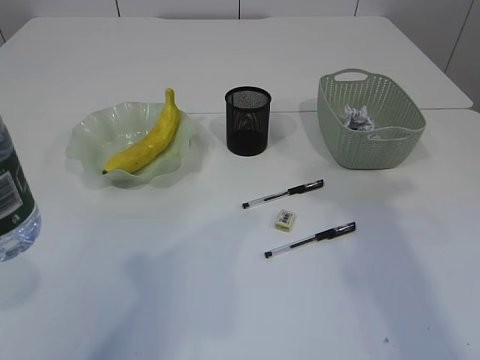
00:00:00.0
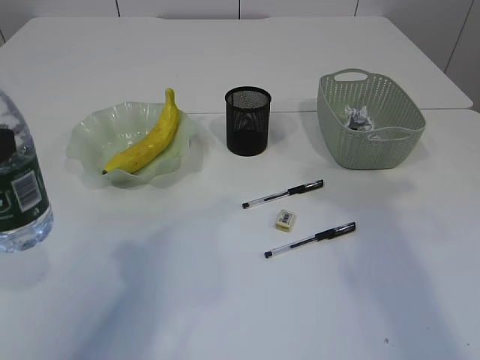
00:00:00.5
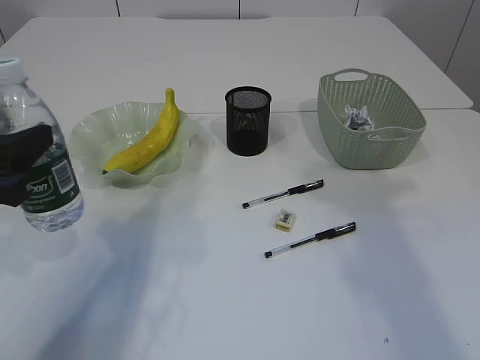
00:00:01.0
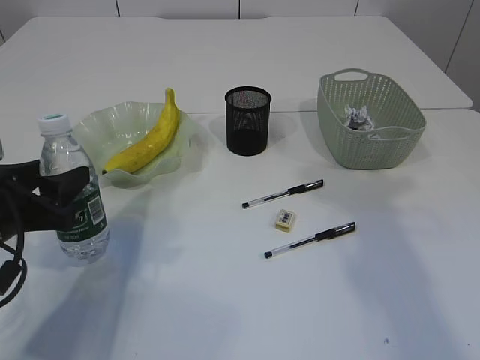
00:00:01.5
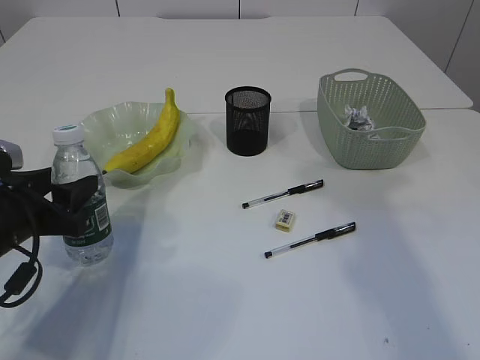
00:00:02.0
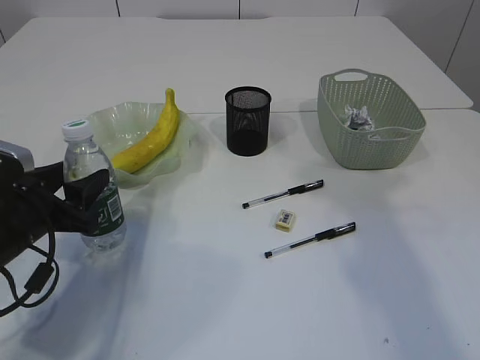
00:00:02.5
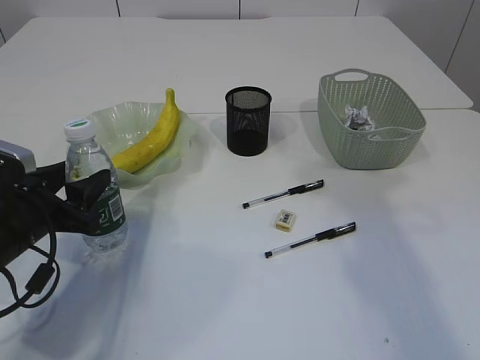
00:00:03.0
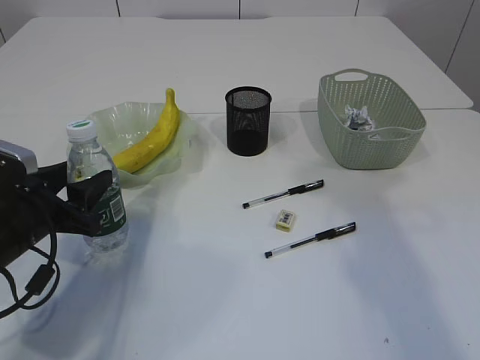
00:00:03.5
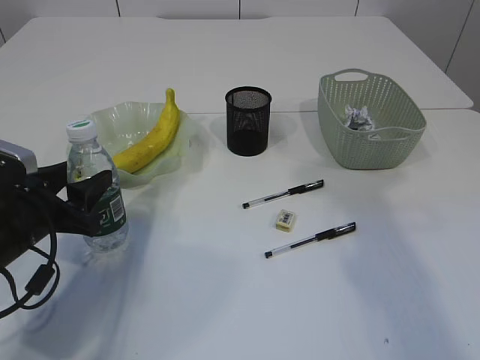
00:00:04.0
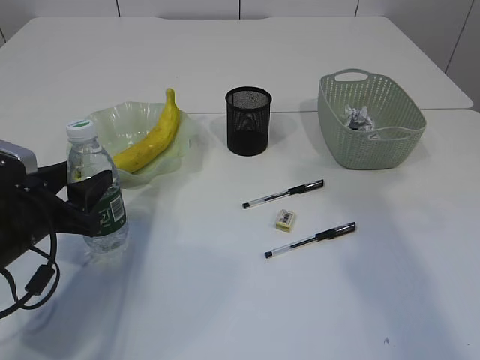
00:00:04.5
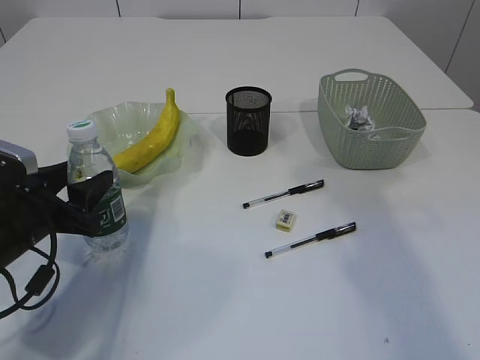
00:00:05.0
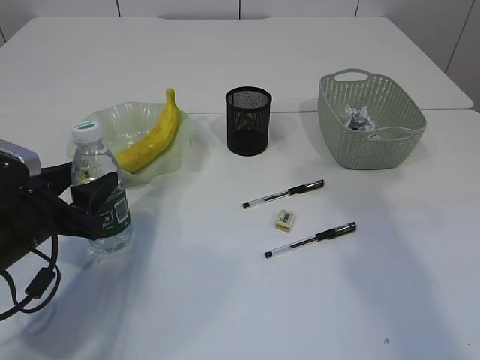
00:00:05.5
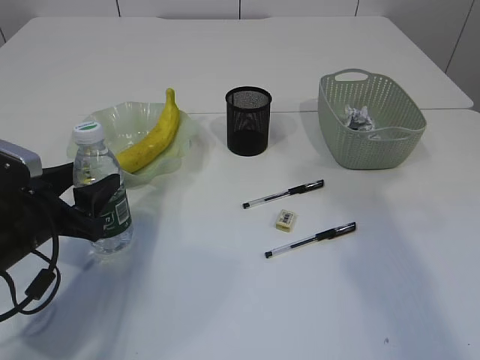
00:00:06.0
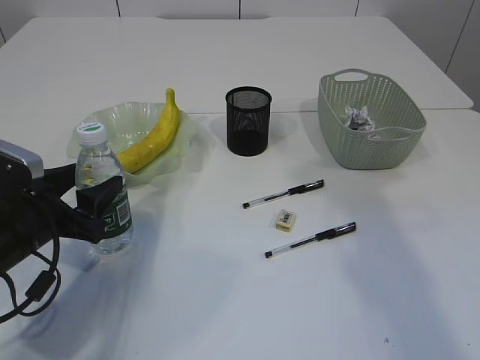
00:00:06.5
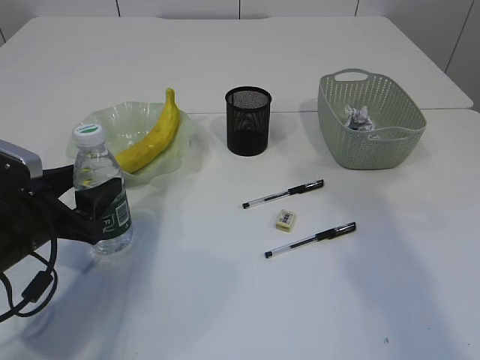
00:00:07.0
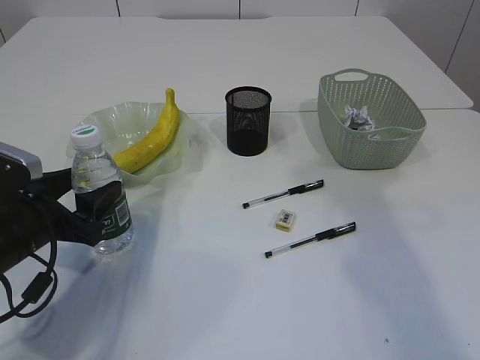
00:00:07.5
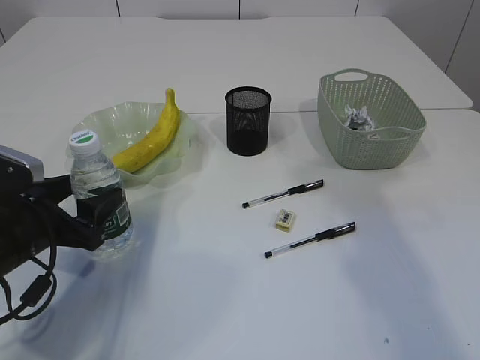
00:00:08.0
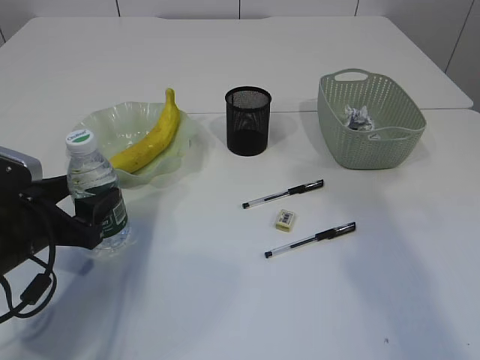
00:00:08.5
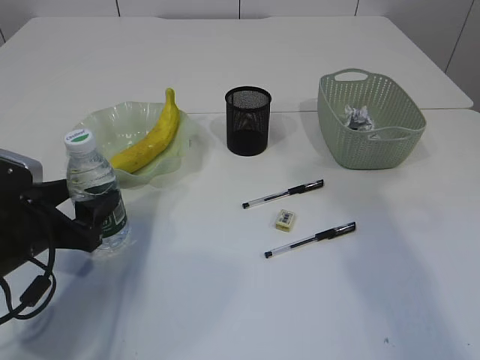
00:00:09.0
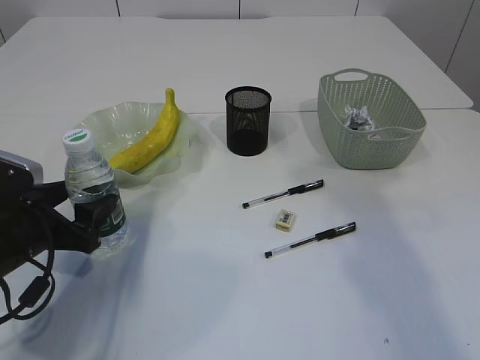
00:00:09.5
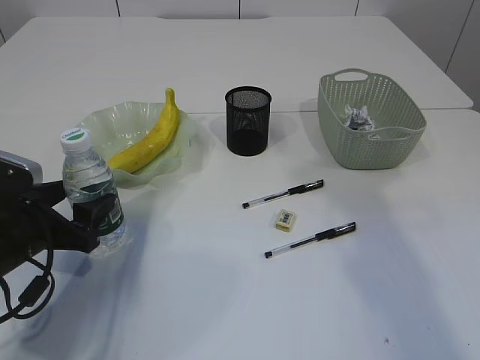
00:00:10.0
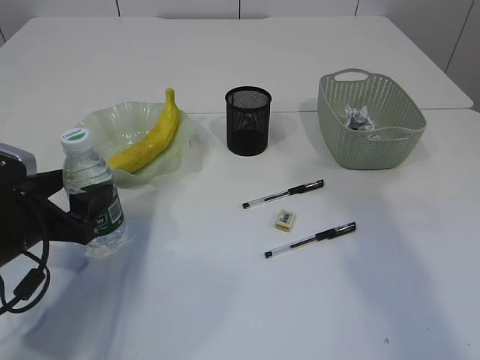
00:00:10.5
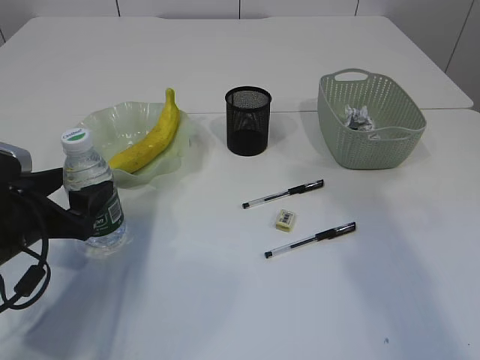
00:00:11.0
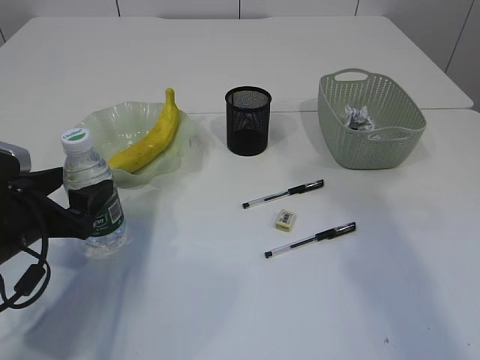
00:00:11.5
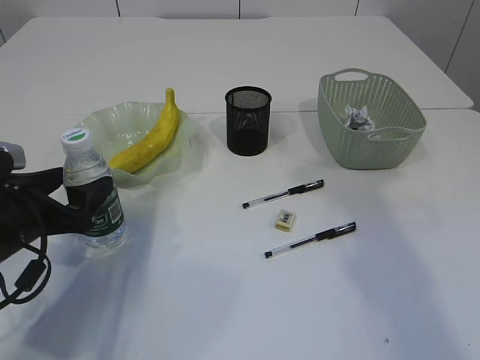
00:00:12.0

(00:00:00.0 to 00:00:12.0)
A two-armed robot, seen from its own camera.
00:00:00.0 - 00:00:02.0: The left gripper heads downward and forward, covering some 20 cm.
00:00:02.0 - 00:00:04.0: The grippers move only a little.
00:00:04.0 - 00:00:08.0: Both grippers stay put.
00:00:08.0 - 00:00:10.0: Both grippers stay put.
00:00:10.0 - 00:00:12.0: There are only small adjustments of the grippers.

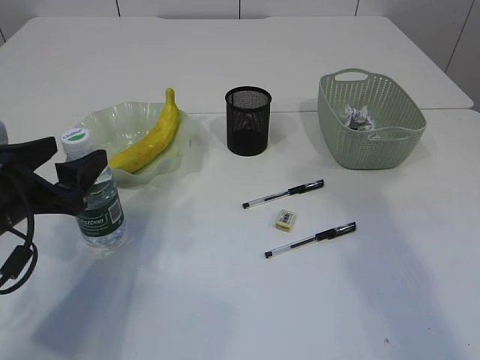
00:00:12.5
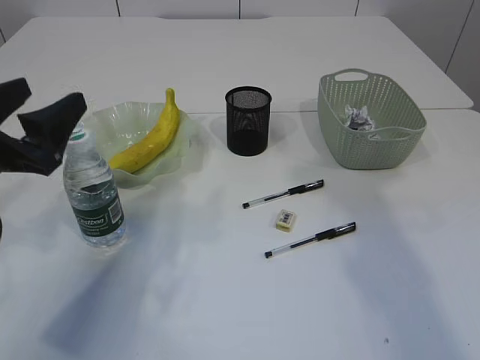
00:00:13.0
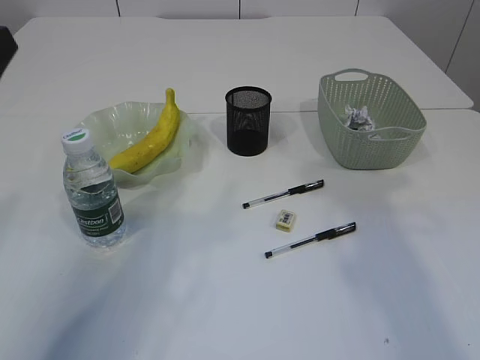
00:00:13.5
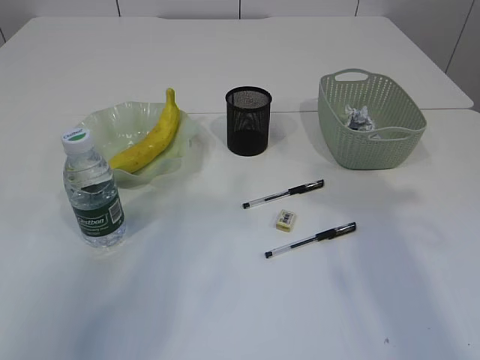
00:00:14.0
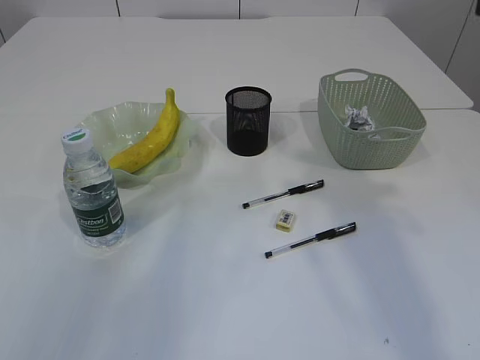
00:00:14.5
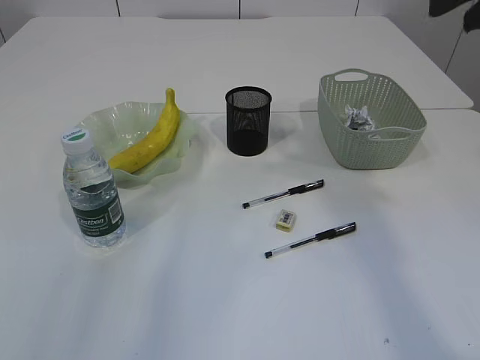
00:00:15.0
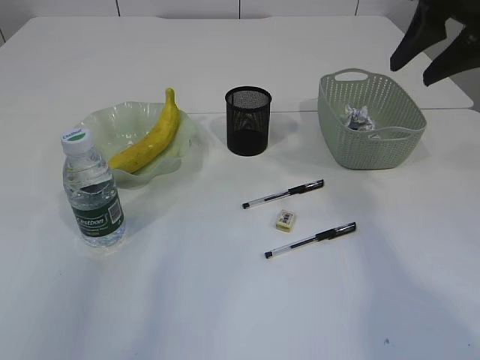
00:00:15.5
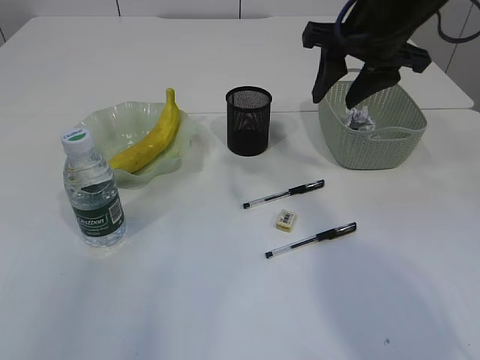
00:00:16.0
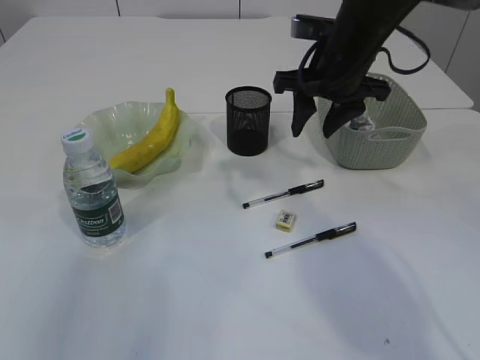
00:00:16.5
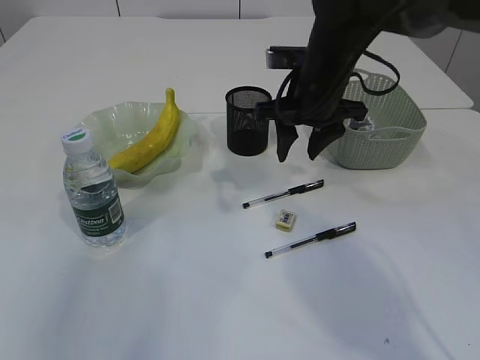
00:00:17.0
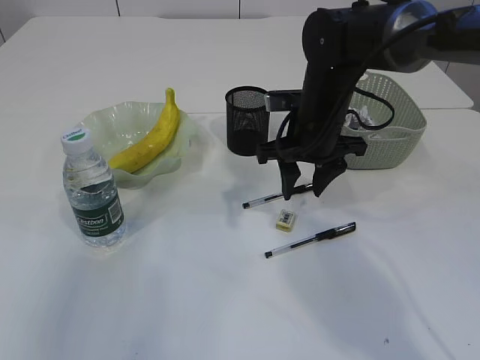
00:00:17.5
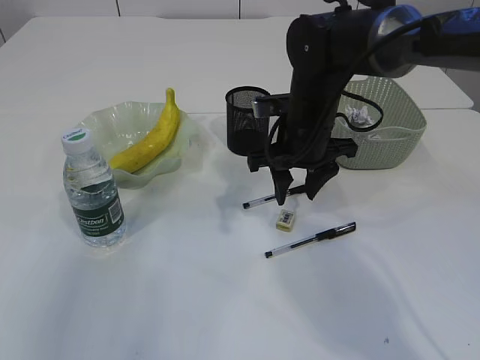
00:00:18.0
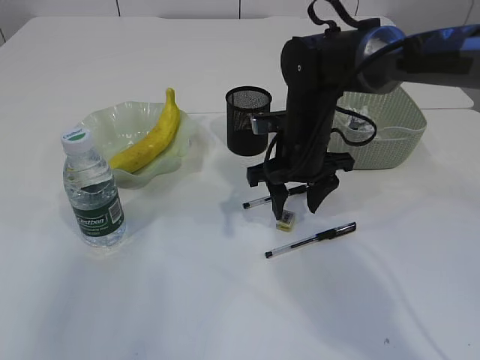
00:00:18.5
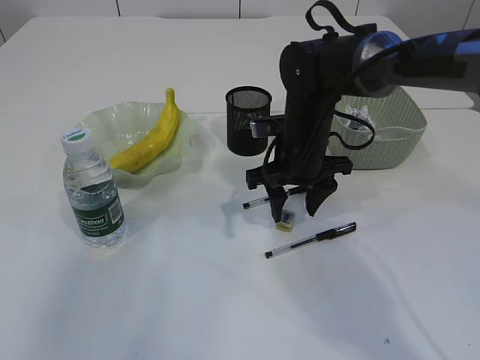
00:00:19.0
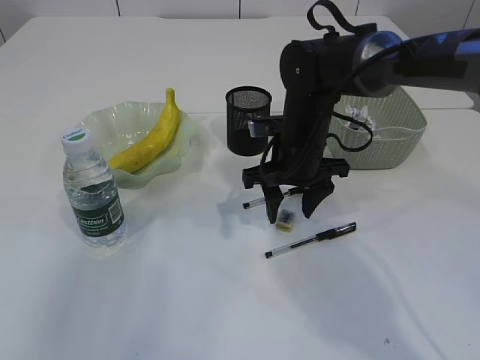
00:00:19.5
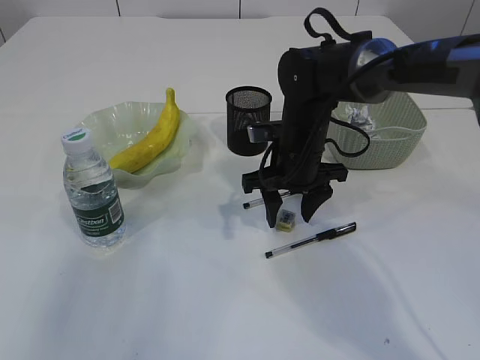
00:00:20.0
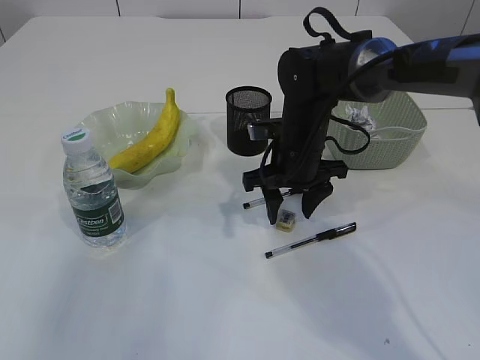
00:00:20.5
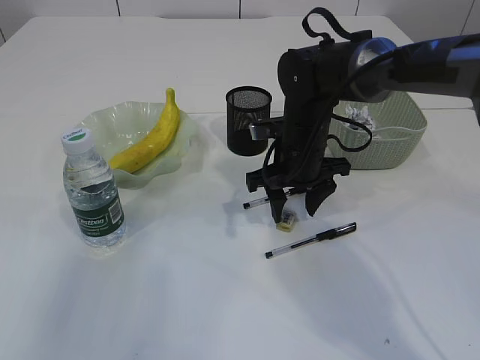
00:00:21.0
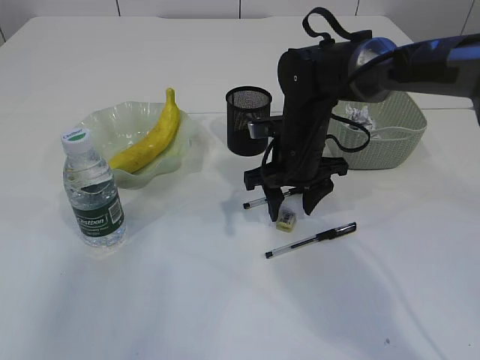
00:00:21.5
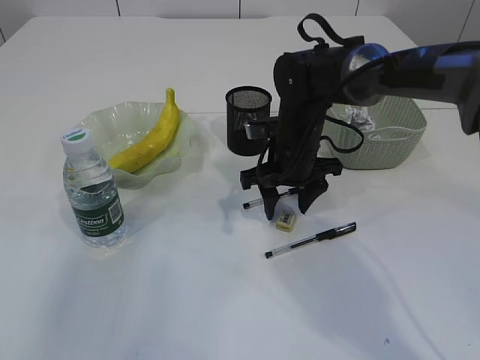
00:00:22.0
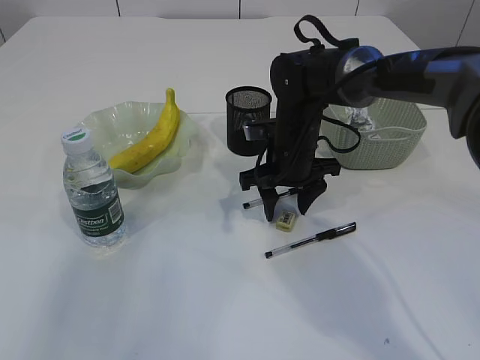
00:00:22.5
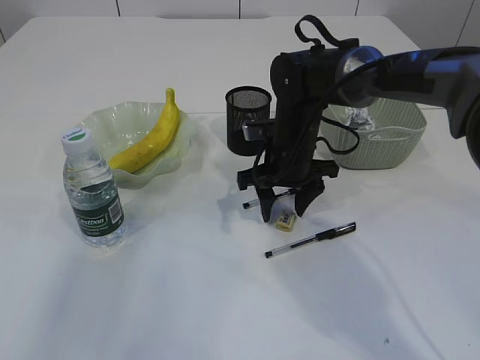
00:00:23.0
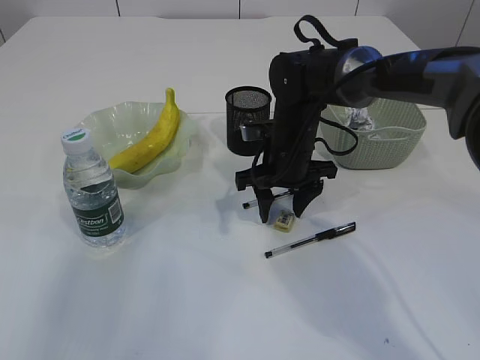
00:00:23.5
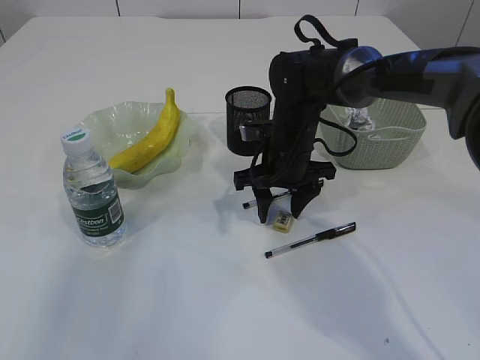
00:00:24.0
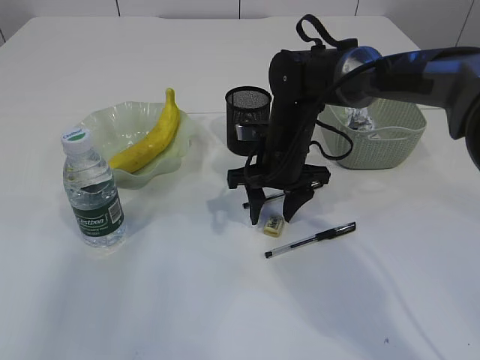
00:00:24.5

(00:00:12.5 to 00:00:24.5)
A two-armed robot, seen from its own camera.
00:00:12.5 - 00:00:14.5: The left gripper goes roughly 25 cm upward.
00:00:14.5 - 00:00:16.5: The right gripper is displaced forward, downward and to the left by approximately 25 cm.
00:00:16.5 - 00:00:18.5: The right gripper moves downward, about 10 cm.
00:00:18.5 - 00:00:24.5: The grippers move only a little.

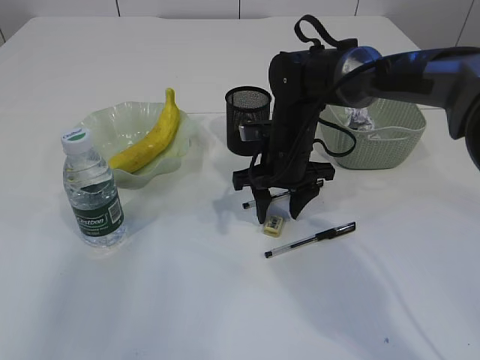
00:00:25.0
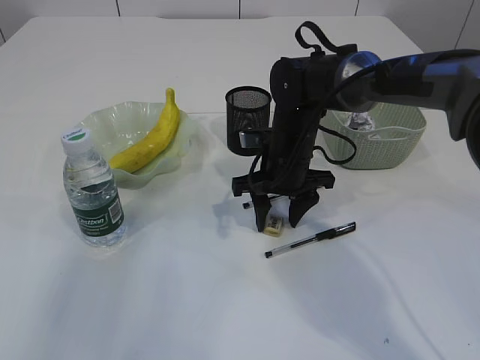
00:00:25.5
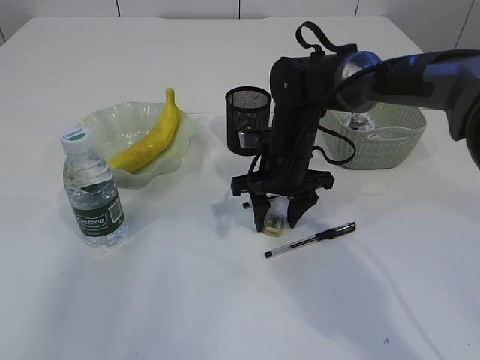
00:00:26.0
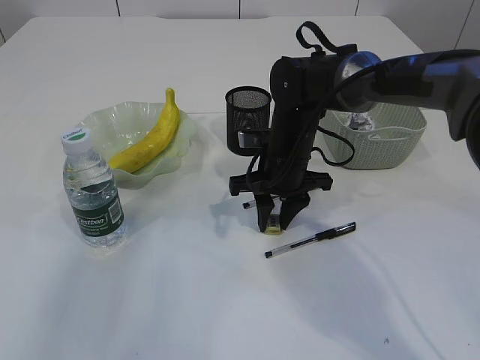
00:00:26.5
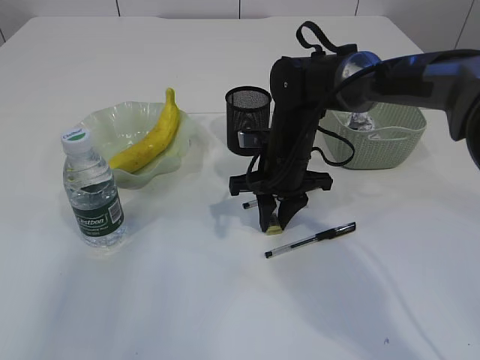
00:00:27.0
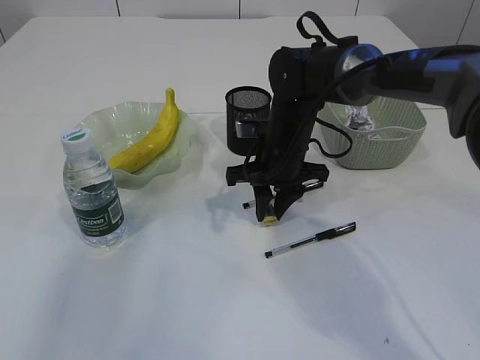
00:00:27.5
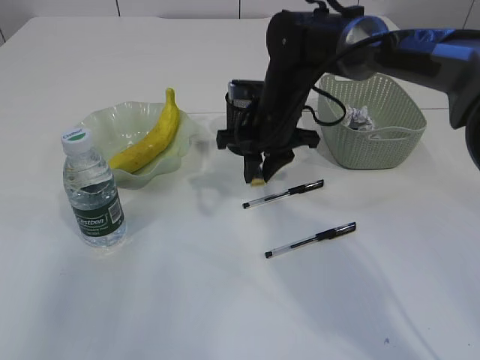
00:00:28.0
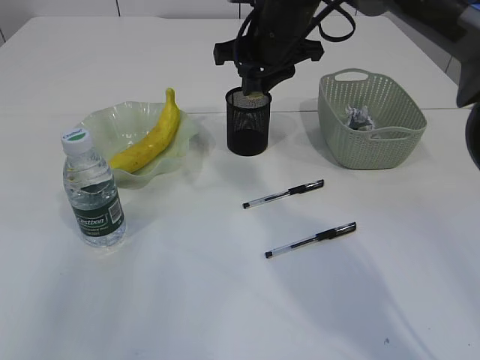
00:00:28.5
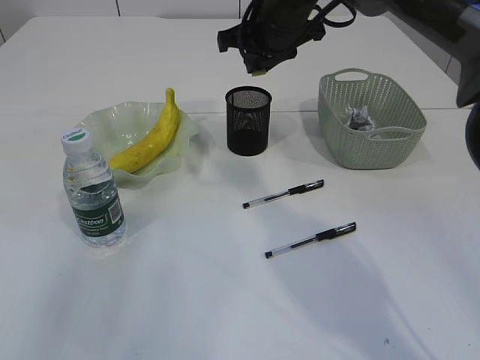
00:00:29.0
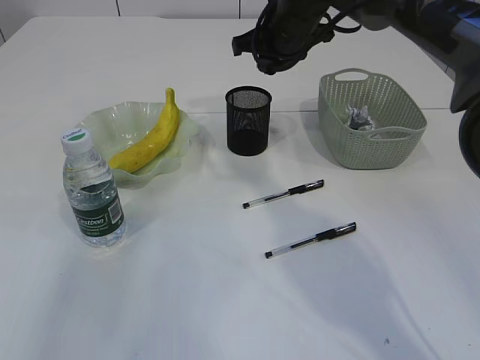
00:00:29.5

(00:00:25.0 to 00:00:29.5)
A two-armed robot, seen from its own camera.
Step, 00:00:25.0 - 00:00:27.5: Pick up the eraser.
00:00:25.0 - 00:00:27.0: The right gripper closes up.
00:00:27.0 - 00:00:29.5: The right gripper moves upward and forward, roughly 15 cm.
